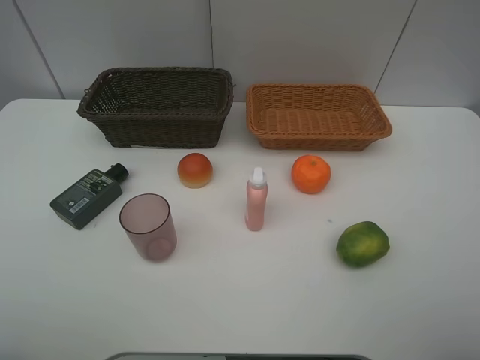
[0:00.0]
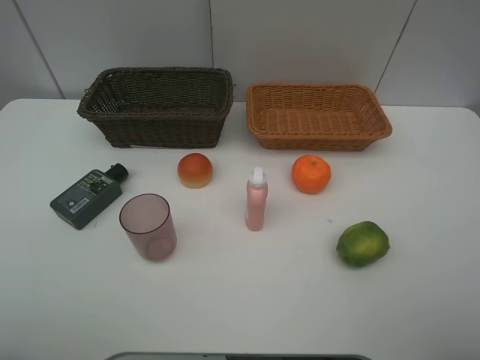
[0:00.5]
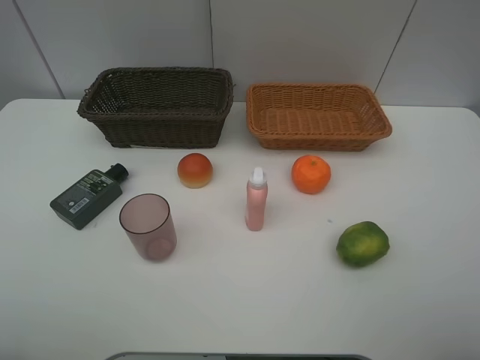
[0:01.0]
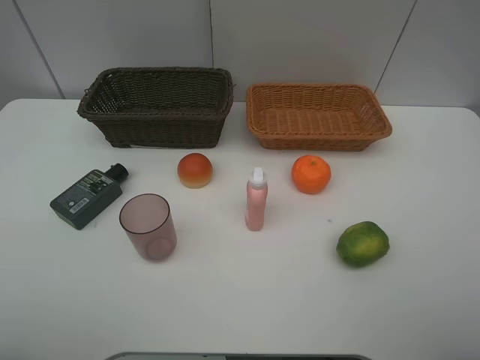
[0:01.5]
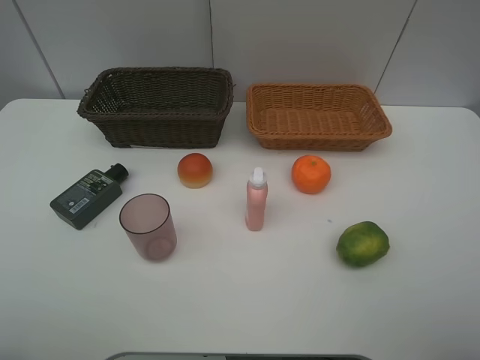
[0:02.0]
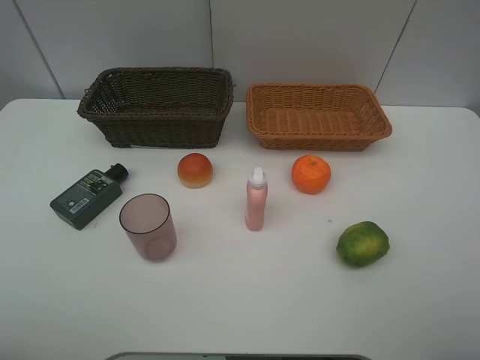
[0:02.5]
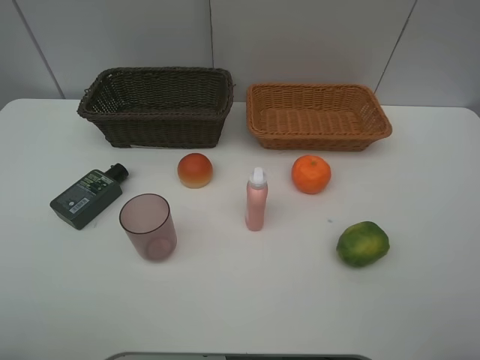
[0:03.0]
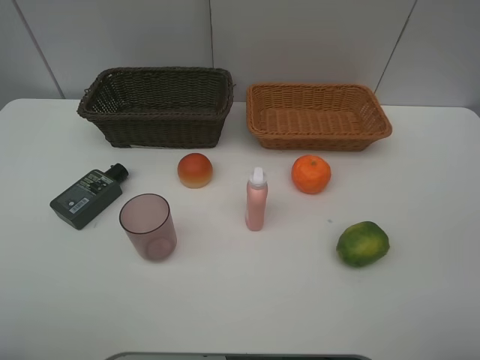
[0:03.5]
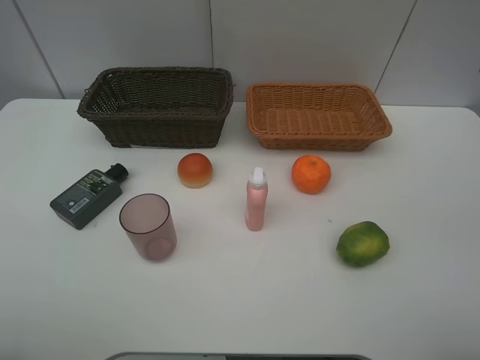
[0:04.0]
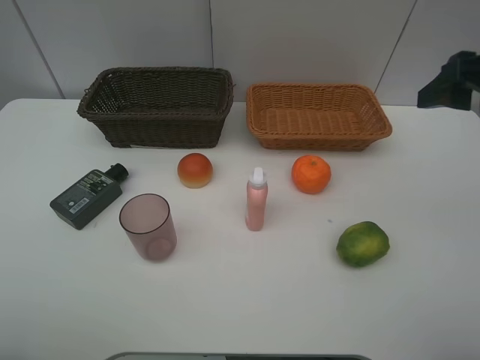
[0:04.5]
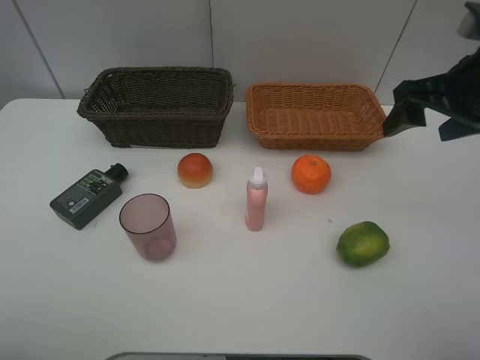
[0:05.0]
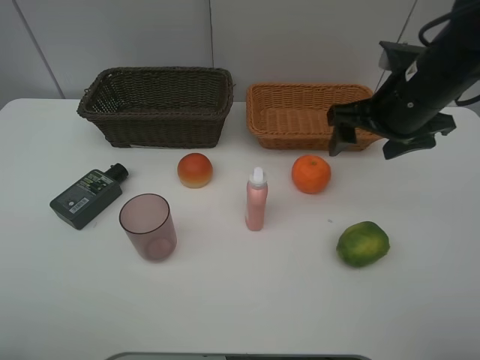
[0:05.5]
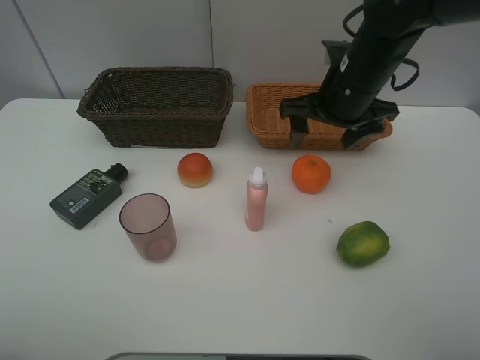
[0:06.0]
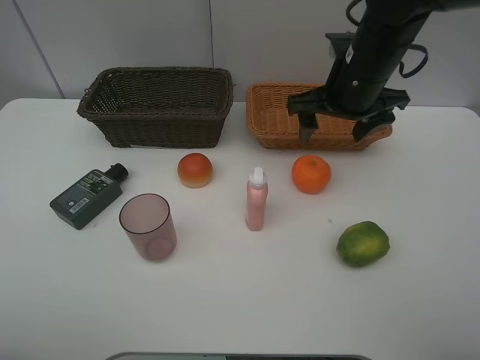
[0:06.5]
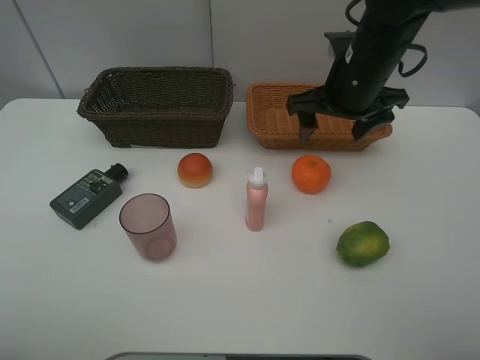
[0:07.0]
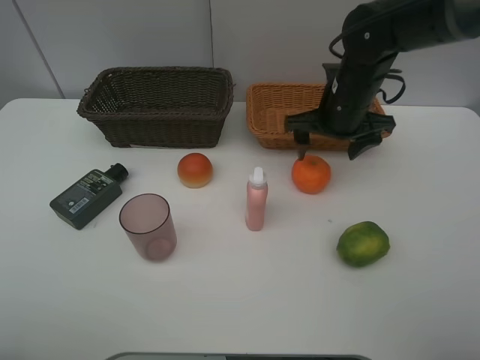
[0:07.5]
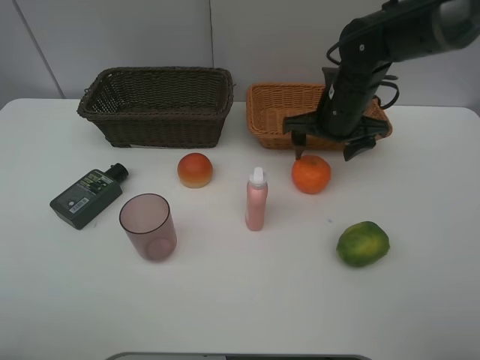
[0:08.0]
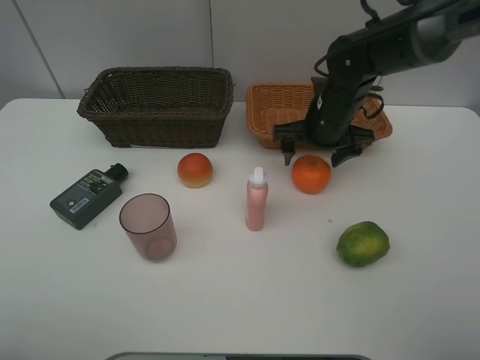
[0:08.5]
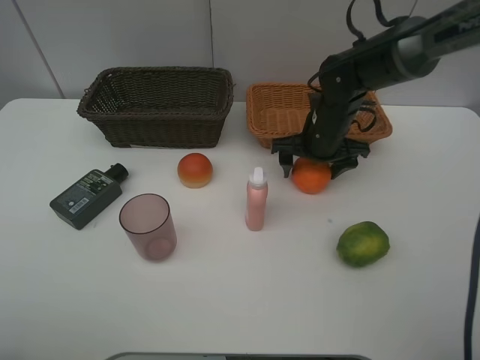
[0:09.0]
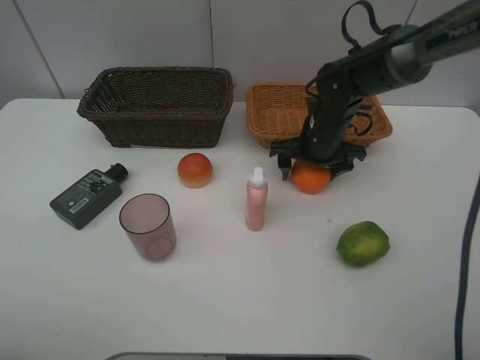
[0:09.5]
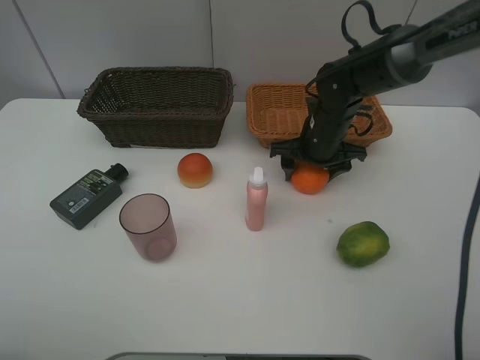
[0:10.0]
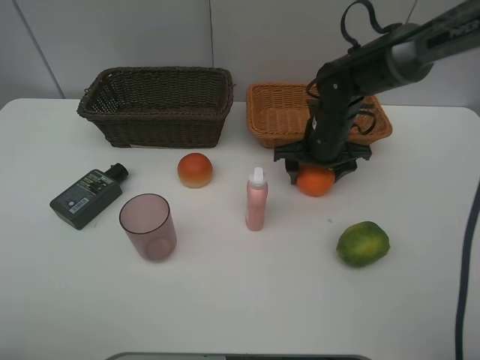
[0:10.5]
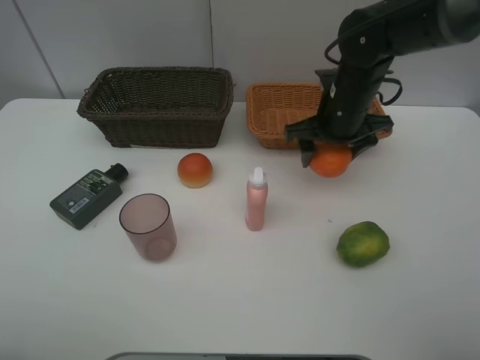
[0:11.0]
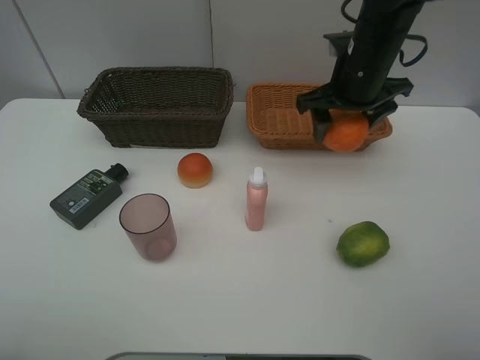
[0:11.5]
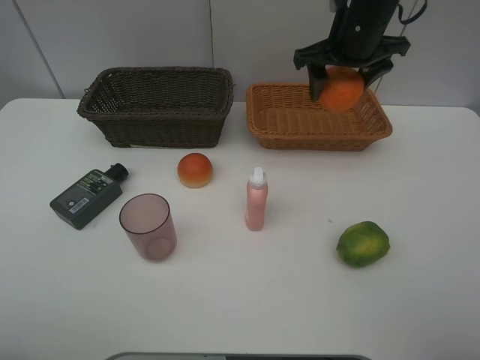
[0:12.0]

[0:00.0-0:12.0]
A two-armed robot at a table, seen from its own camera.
Task of the whole recording: place multiple objects separately in different baskets.
0:00.0 to 0:02.0: Both grippers stay about where they are.
0:04.0 to 0:06.0: The right gripper moves to the left, forward and downward, roughly 25 cm.
0:06.0 to 0:08.0: The right gripper is displaced downward by some 5 cm.
0:08.0 to 0:10.0: The right gripper is displaced downward by roughly 5 cm.
0:10.0 to 0:12.0: The right gripper heads upward, covering approximately 15 cm.

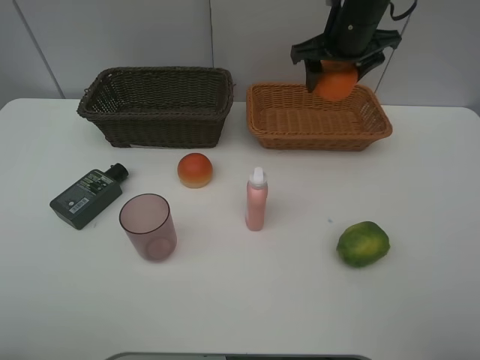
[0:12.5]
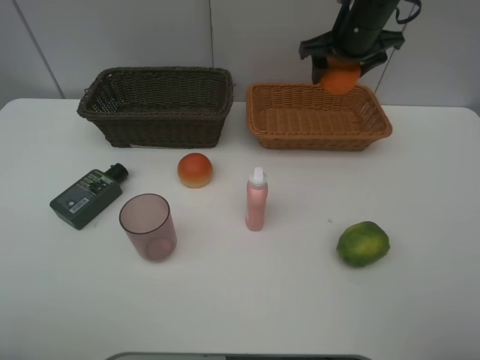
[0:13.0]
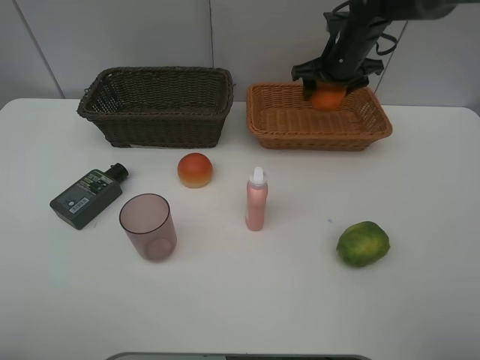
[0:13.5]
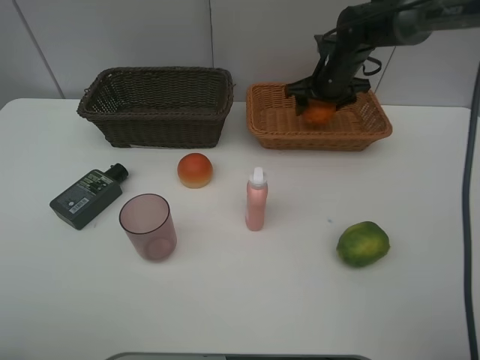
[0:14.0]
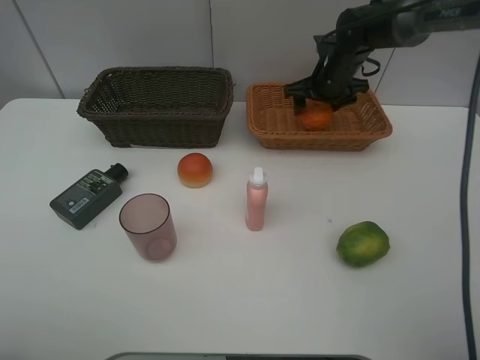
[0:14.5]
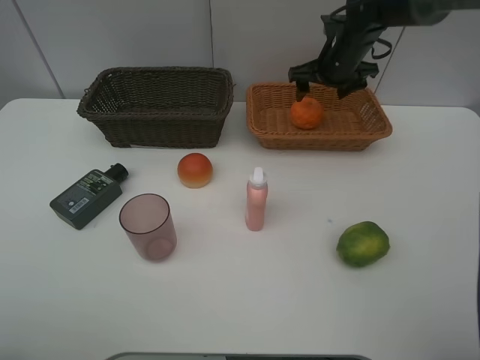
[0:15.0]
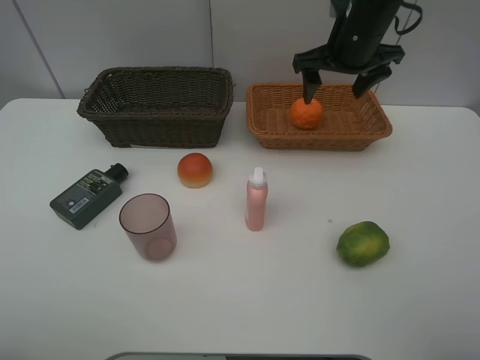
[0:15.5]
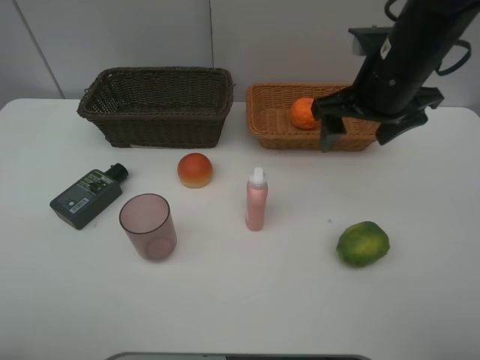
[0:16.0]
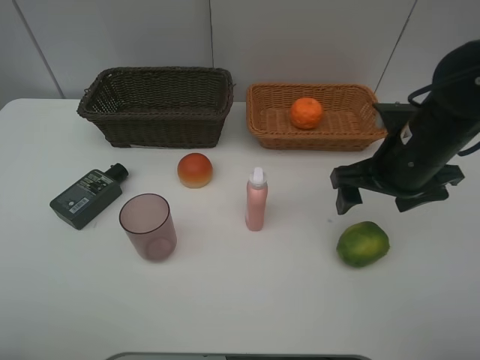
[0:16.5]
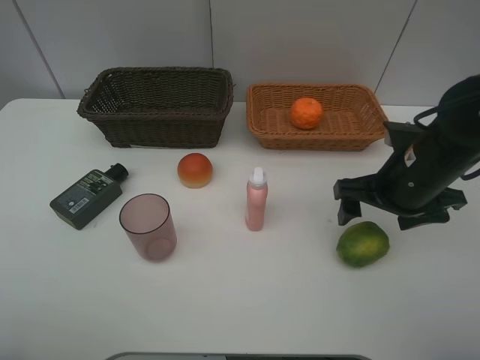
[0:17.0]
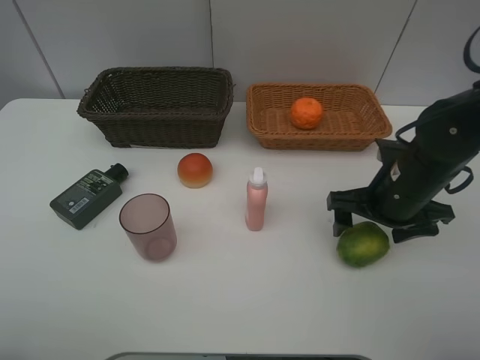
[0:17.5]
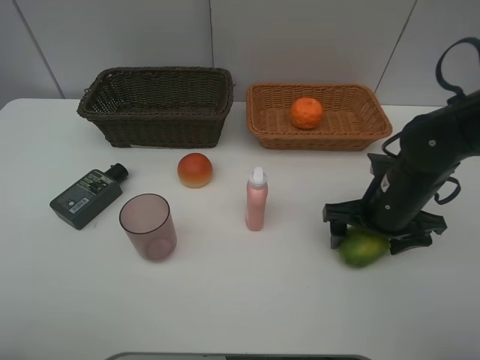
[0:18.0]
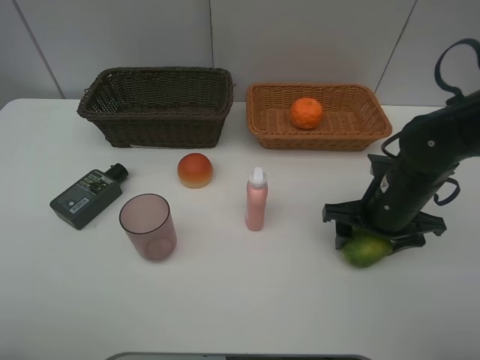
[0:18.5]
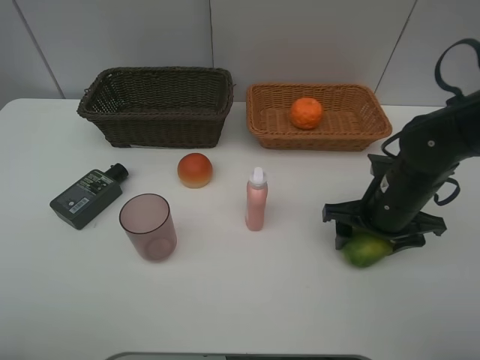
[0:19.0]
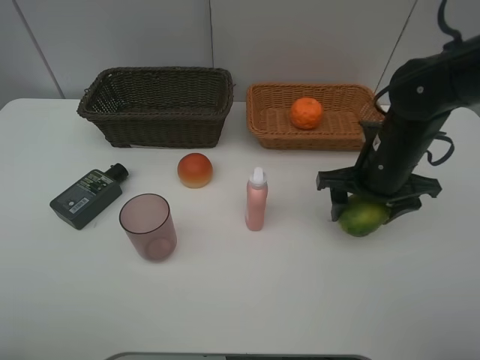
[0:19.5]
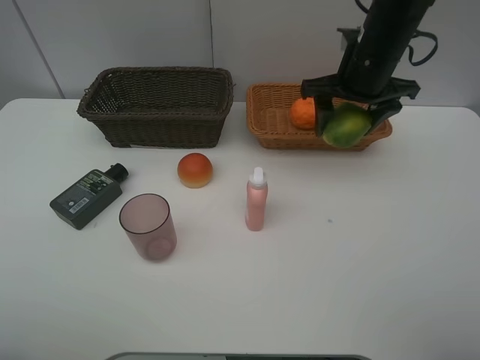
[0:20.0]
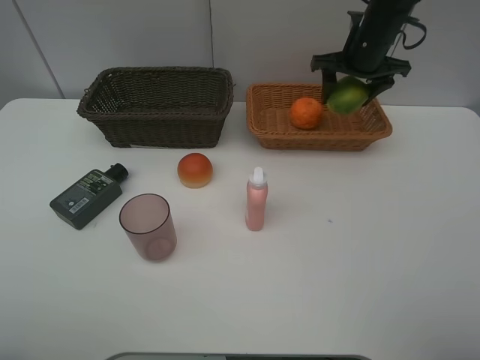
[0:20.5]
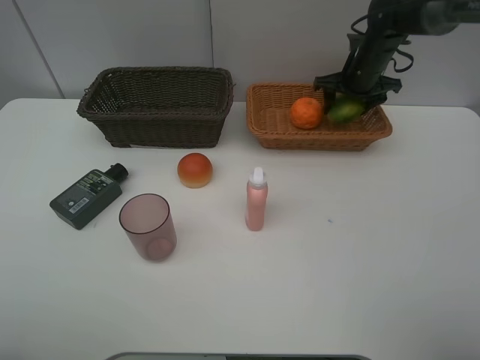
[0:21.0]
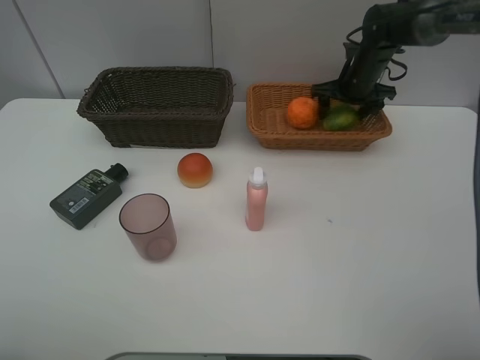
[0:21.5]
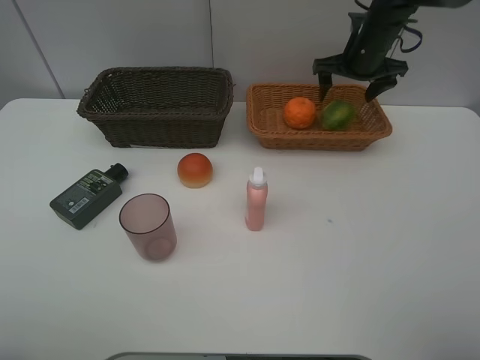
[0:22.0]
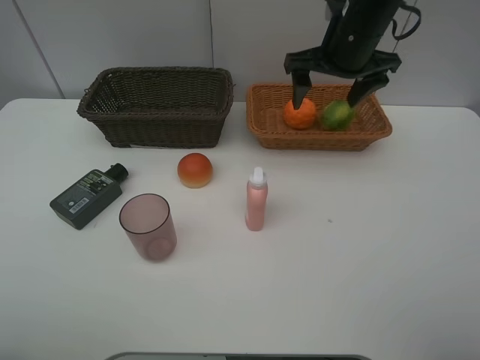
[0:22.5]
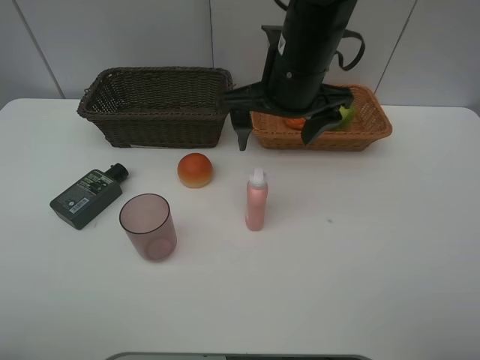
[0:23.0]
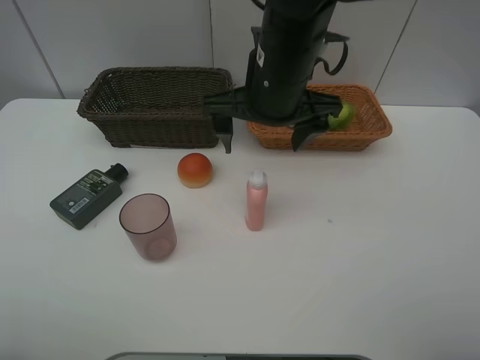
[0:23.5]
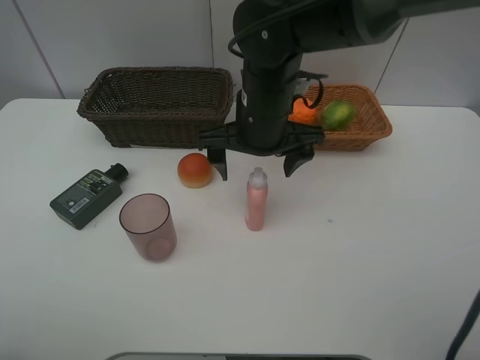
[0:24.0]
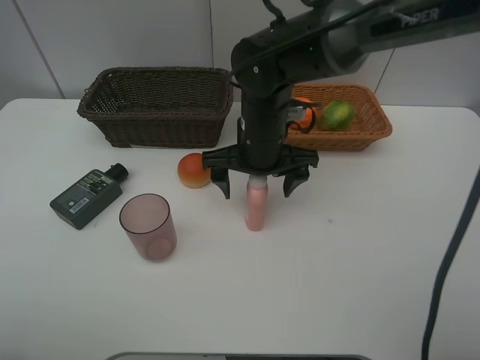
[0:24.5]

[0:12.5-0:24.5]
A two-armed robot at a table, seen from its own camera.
Task of the whole recording: place multiple objects separately in different baskets.
0:12.5 to 0:14.5: The right gripper goes some 15 cm downward and forward.
0:14.5 to 0:16.5: The right gripper travels backward by roughly 25 cm.
0:16.5 to 0:18.5: The right gripper goes about 5 cm downward.
0:18.5 to 0:20.5: The right gripper heads forward and upward, covering roughly 25 cm.
0:20.5 to 0:22.5: The right gripper shifts about 10 cm backward and to the left.
0:22.5 to 0:24.5: The right gripper shifts roughly 15 cm to the left, downward and backward.

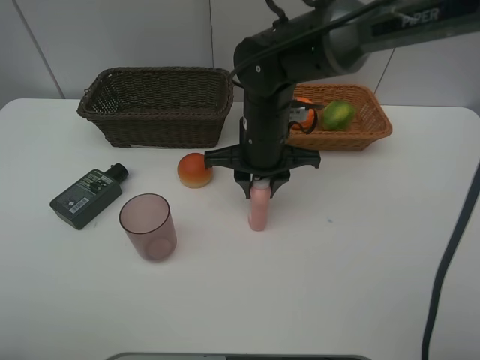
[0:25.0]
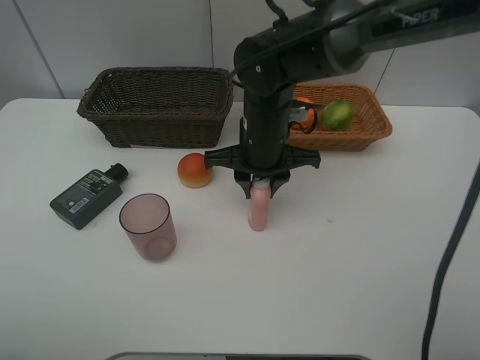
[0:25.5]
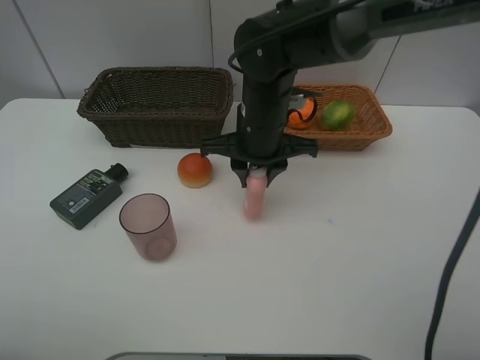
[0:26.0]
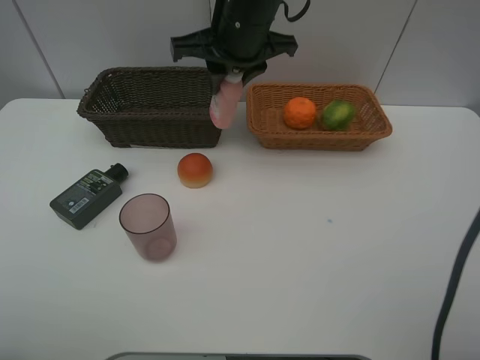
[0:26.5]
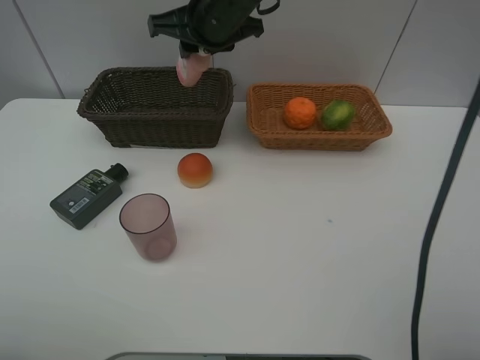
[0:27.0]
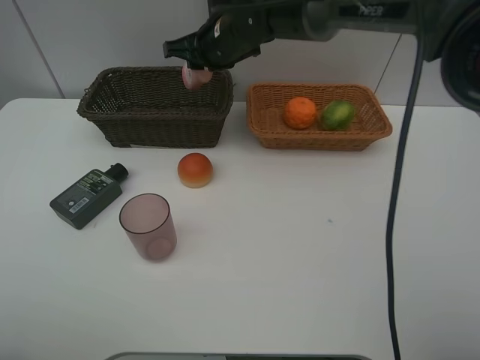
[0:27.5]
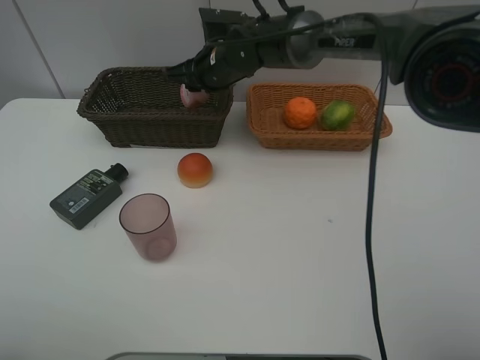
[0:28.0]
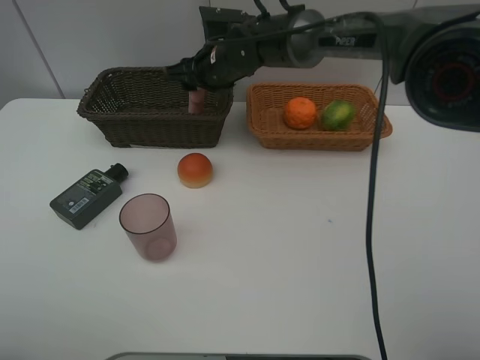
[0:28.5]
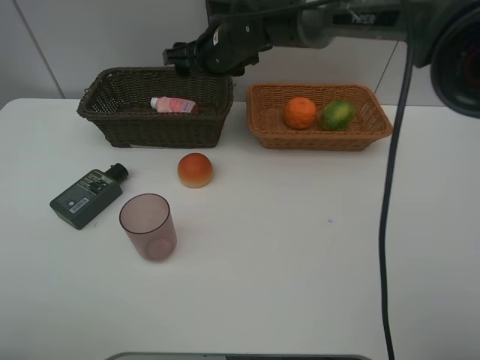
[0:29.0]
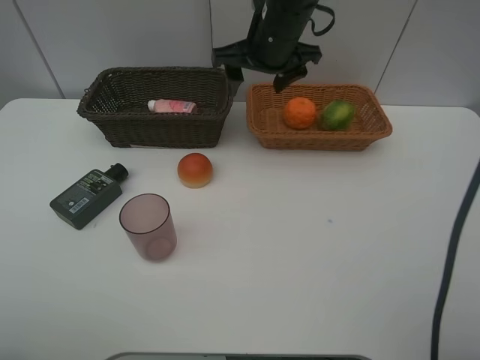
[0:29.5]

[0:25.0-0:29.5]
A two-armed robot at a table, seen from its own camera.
Task of the whole recording: place multiple objects separately in different baskets.
0:25.0 to 0:27.0: The right gripper shifts approximately 15 cm upward, forward and to the left.
0:27.0 to 0:29.5: The right gripper moves to the right, about 10 cm, reaches some 10 cm downward, then returns, and opens up.
